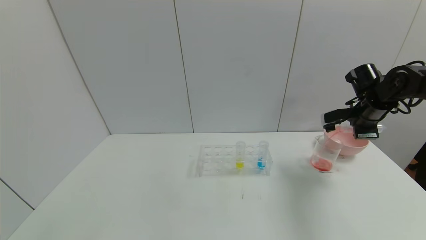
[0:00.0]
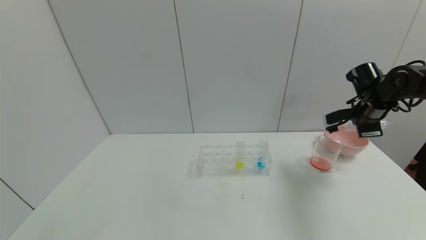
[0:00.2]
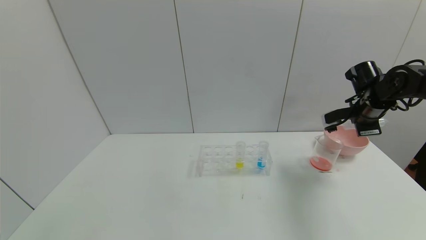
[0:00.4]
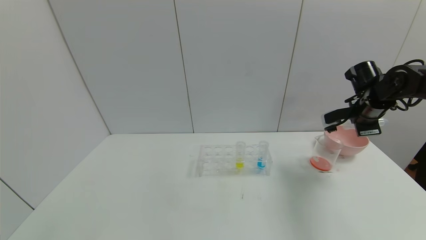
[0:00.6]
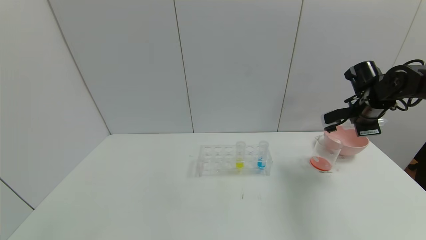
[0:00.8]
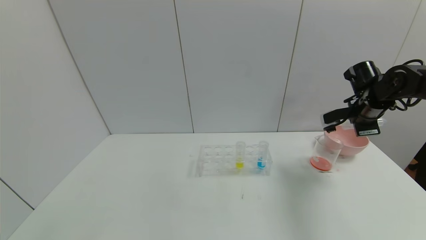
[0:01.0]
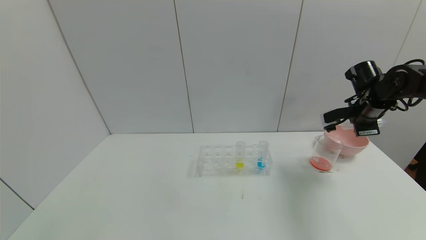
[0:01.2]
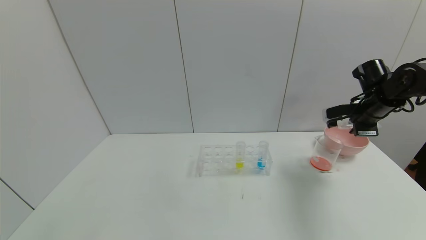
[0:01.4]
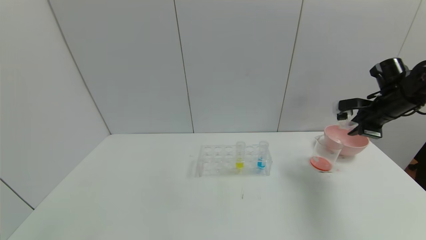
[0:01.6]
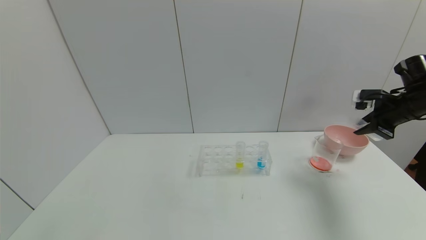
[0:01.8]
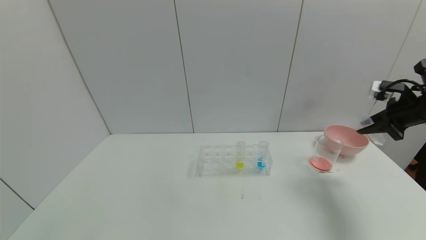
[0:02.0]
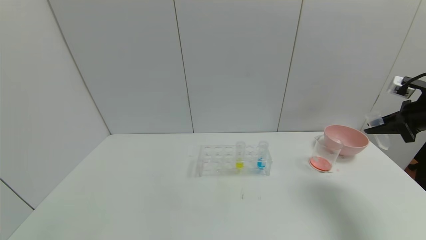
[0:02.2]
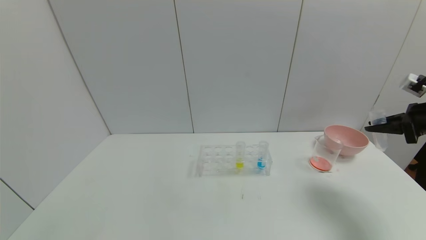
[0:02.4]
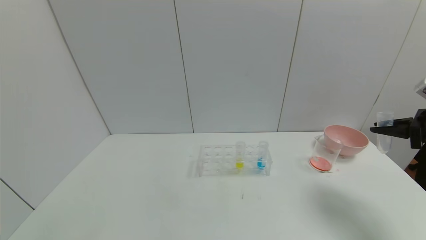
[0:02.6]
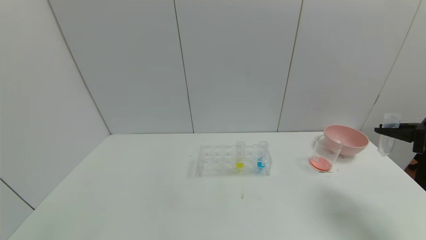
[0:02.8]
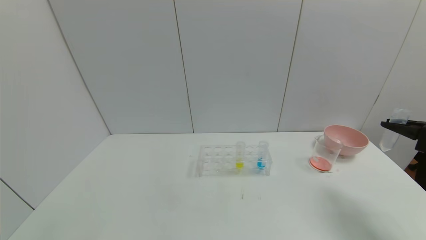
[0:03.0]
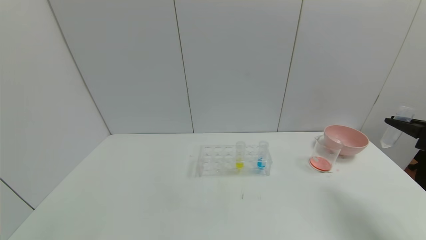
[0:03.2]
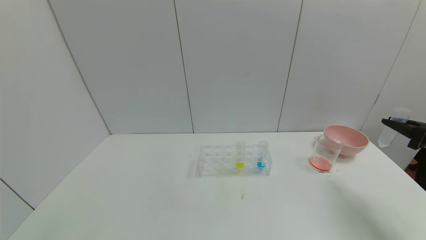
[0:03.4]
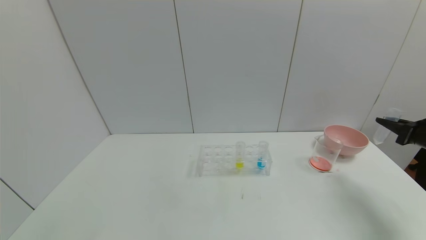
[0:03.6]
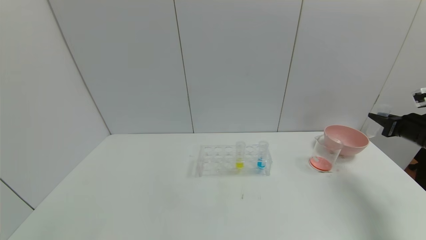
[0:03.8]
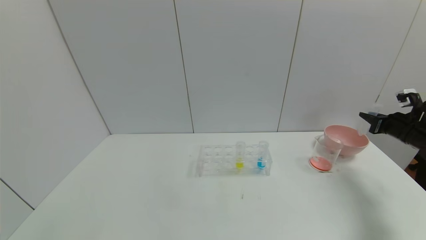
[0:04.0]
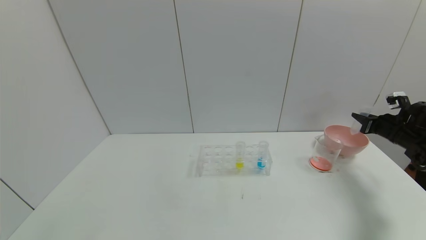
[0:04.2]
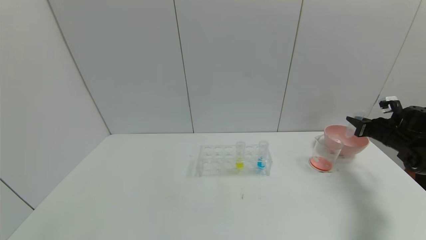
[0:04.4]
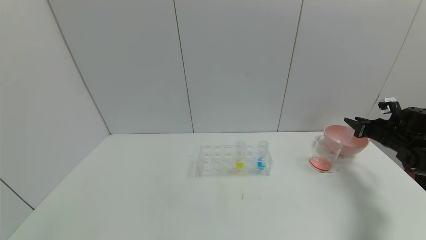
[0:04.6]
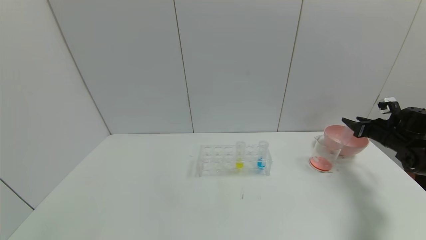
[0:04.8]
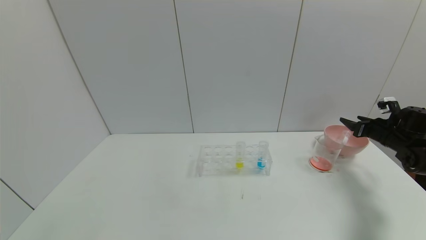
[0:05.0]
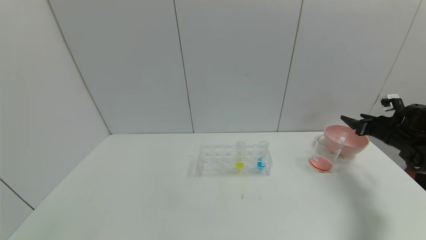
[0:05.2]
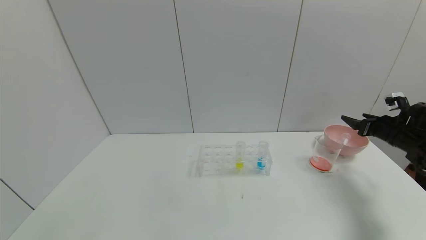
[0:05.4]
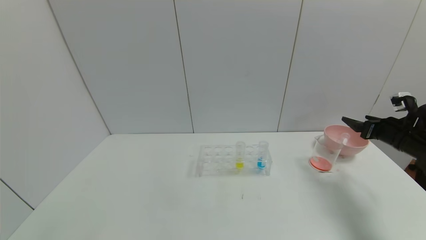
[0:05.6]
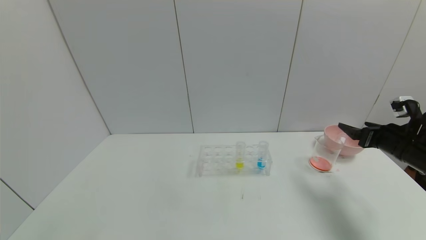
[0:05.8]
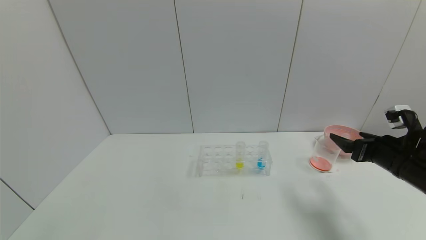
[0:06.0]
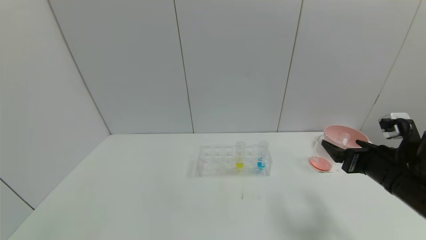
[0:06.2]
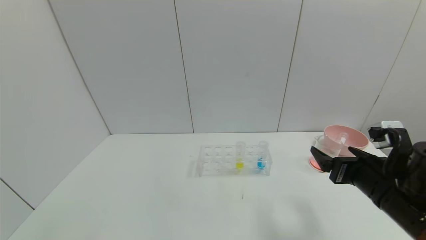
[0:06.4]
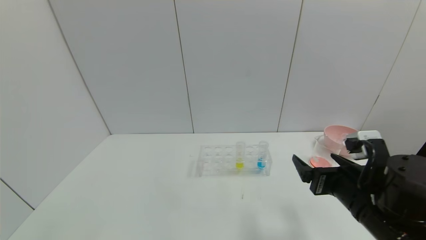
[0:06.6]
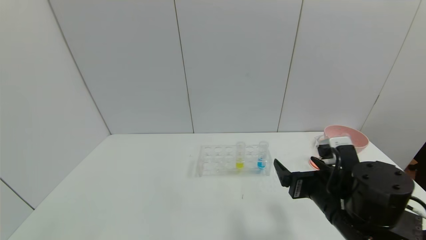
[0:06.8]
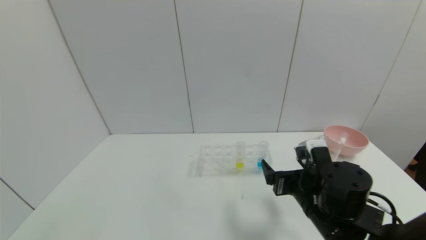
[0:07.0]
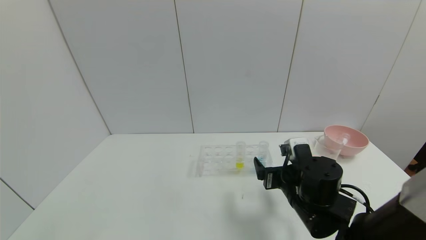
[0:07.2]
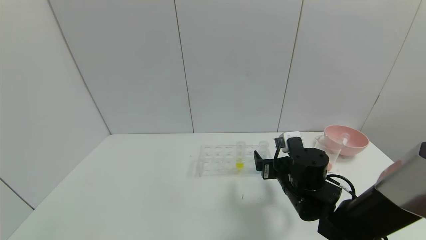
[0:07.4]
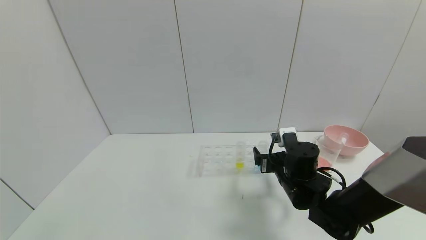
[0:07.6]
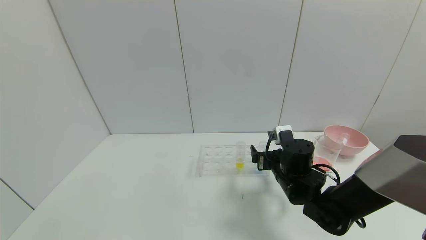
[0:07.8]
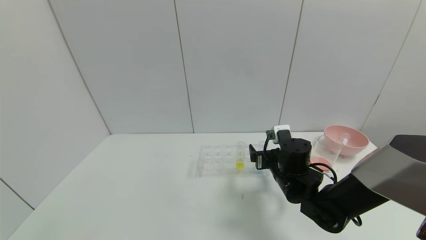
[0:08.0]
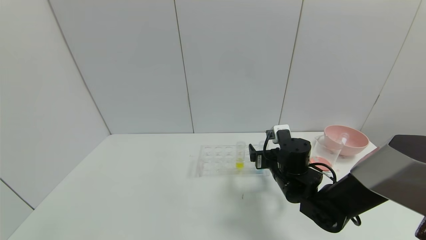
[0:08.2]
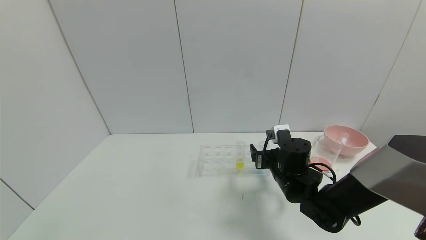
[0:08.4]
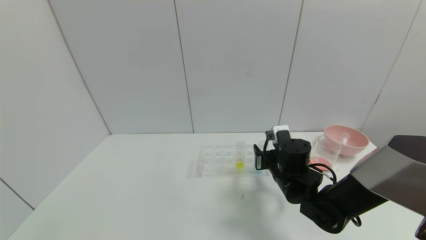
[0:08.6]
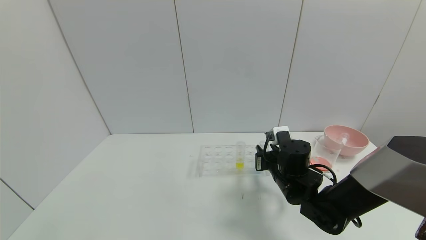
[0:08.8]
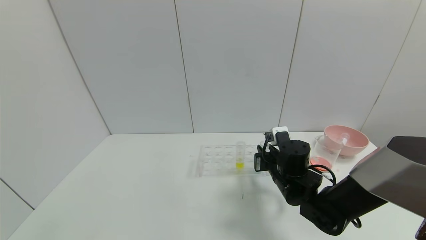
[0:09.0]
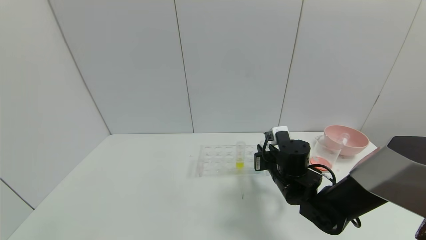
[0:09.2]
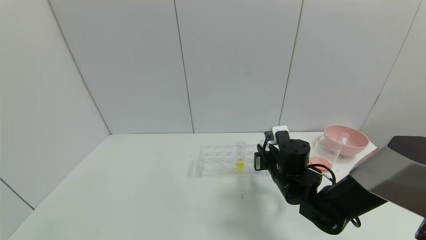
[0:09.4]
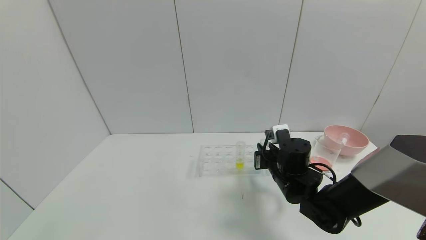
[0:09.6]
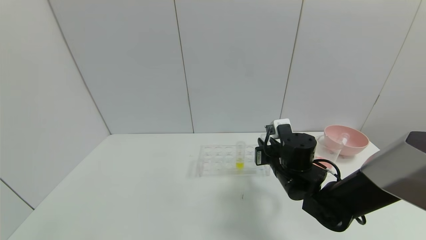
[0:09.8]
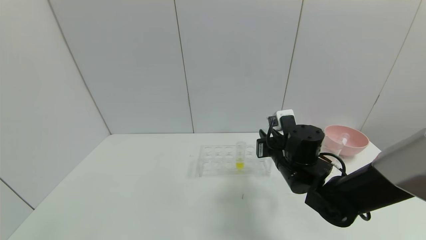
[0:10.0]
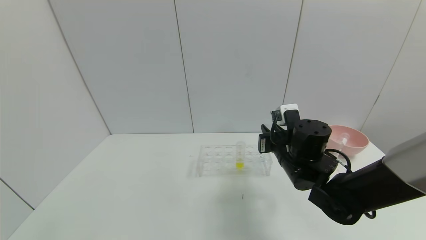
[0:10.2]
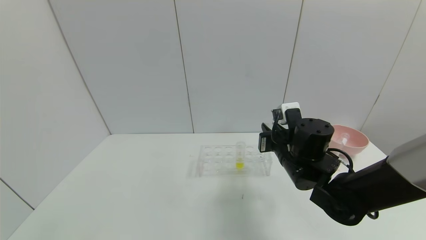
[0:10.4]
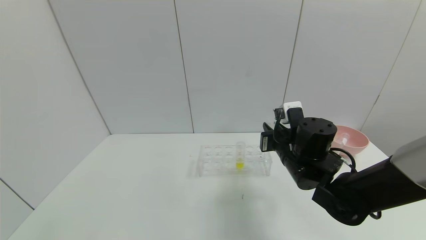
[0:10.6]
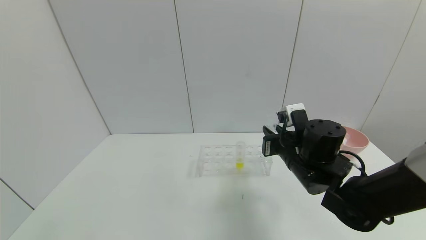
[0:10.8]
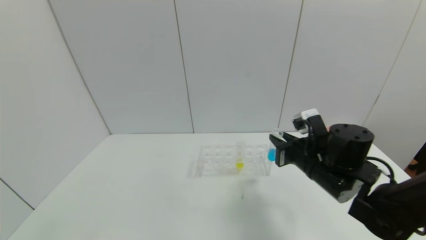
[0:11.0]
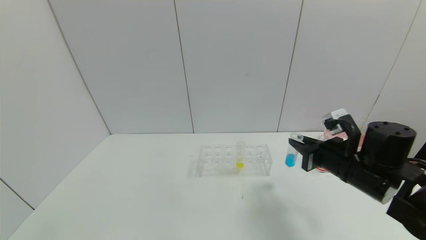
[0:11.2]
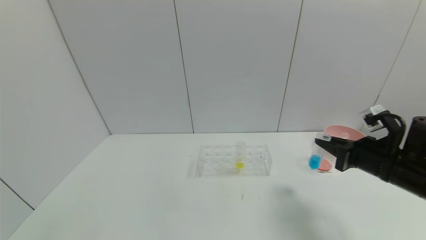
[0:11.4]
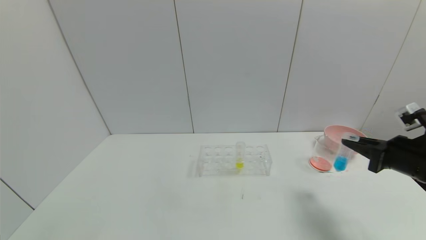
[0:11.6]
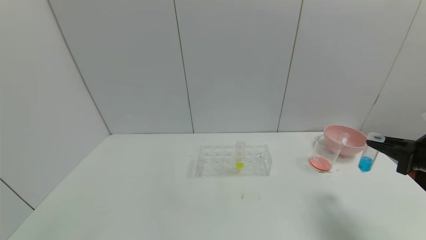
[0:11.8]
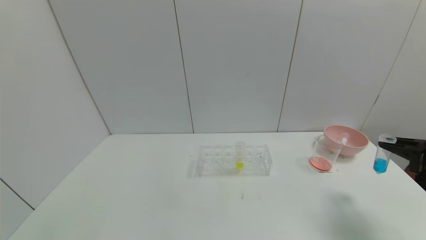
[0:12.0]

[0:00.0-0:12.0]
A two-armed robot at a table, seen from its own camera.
Task of the whole recording: pick up the test tube with red pigment and the test tube with blue pigment by grippers and pour them into the container.
Step, 0:00.4 to 0:05.2: Place the test tube into the bowl with the right gripper.
Step, 0:05.4 to 0:09.2: Grasp the blue reagent with the right gripper.
0:01.6 to 0:03.0: The right gripper travels backward and to the right by some 15 cm.
0:03.0 to 0:04.4: The right gripper heads forward and downward, covering approximately 20 cm.
0:04.4 to 0:06.0: The right gripper moves backward and to the left, roughly 20 cm, and opens.
0:06.0 to 0:07.6: The right gripper heads to the left, covering about 20 cm.
0:07.6 to 0:09.0: The right gripper closes its fingers.
0:09.0 to 0:10.4: The right gripper shifts some 5 cm upward.
0:10.4 to 0:12.0: The right gripper moves to the right, some 30 cm.

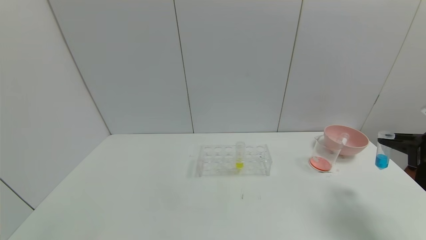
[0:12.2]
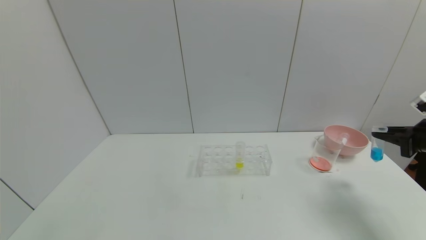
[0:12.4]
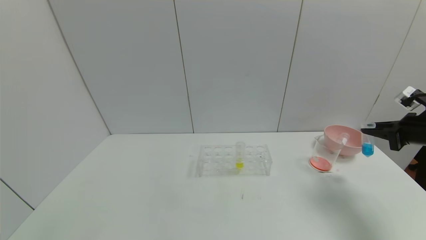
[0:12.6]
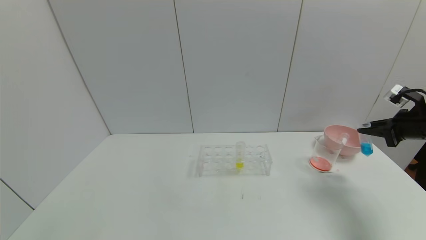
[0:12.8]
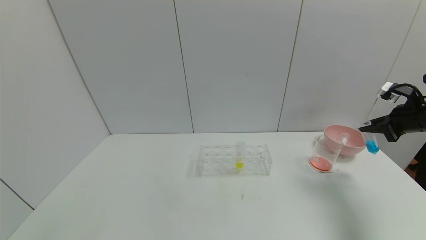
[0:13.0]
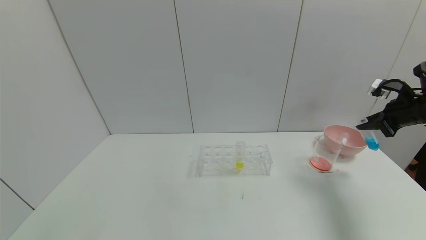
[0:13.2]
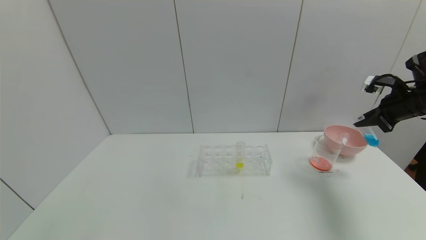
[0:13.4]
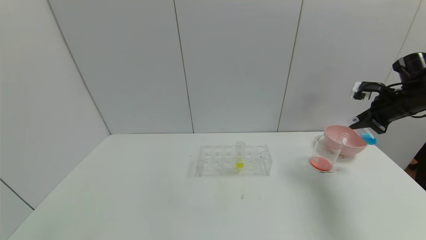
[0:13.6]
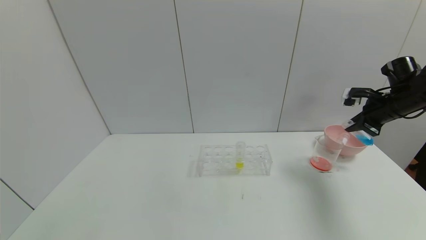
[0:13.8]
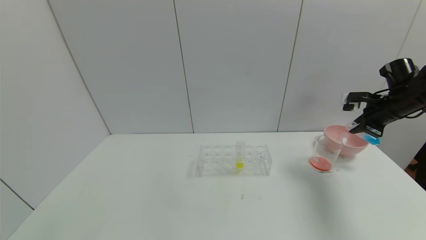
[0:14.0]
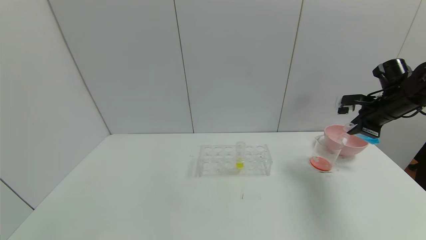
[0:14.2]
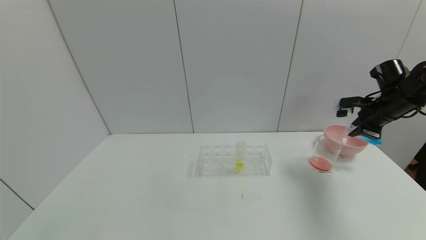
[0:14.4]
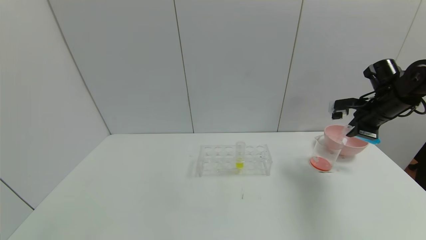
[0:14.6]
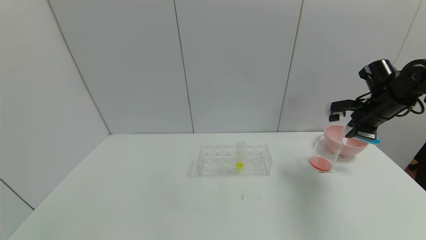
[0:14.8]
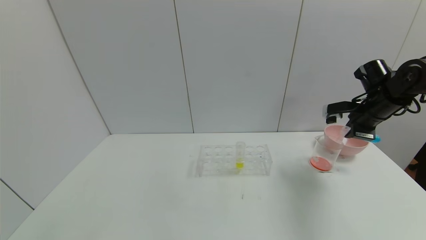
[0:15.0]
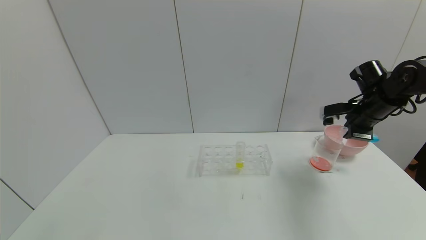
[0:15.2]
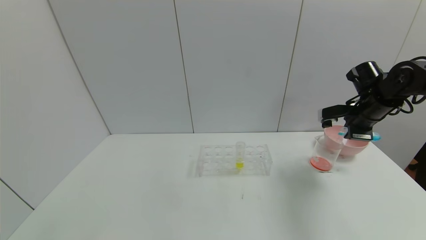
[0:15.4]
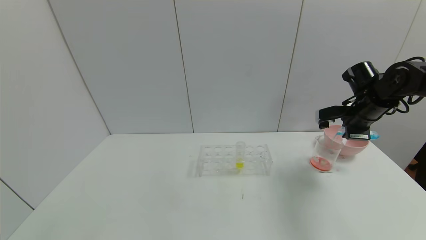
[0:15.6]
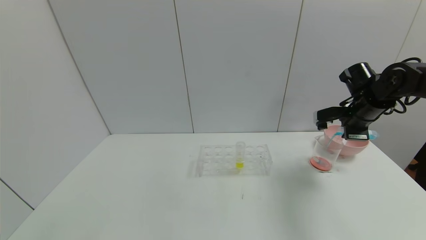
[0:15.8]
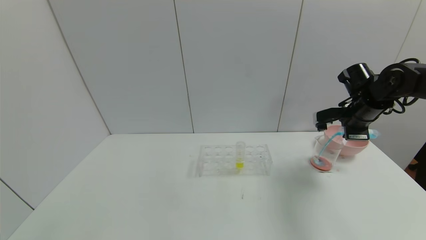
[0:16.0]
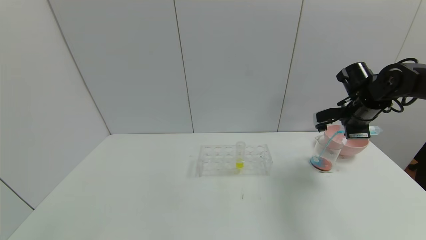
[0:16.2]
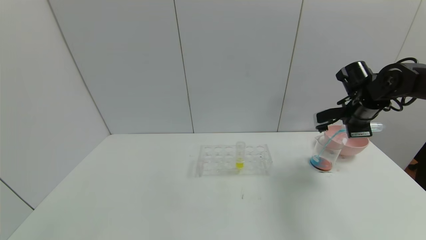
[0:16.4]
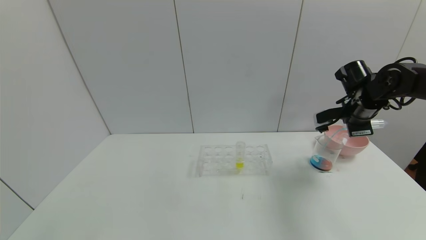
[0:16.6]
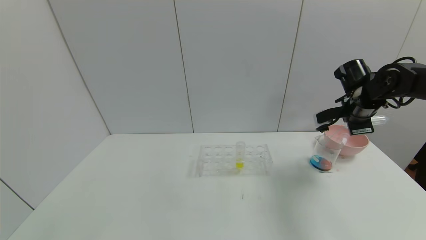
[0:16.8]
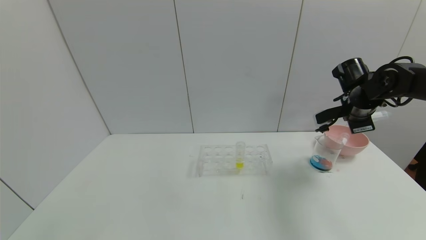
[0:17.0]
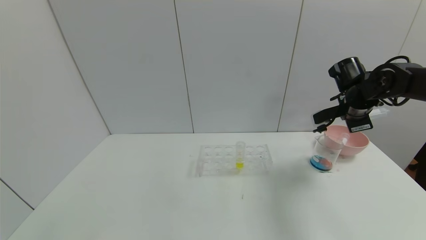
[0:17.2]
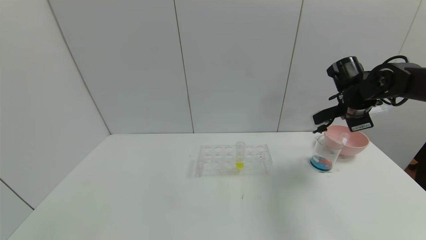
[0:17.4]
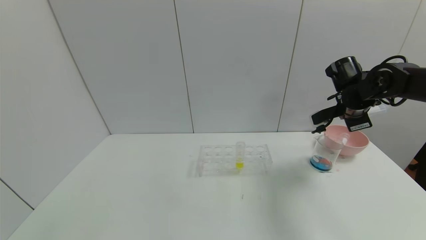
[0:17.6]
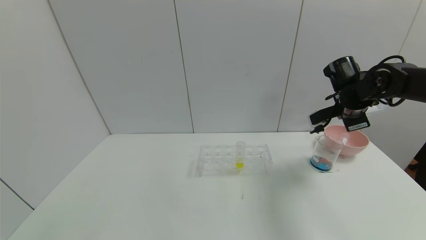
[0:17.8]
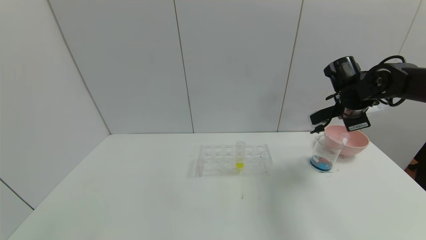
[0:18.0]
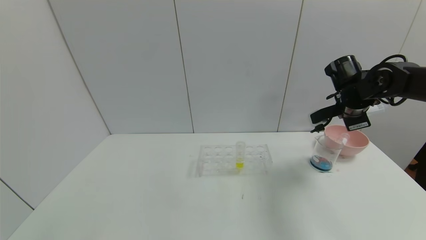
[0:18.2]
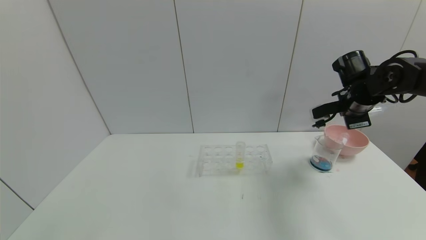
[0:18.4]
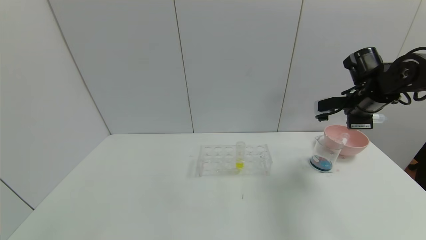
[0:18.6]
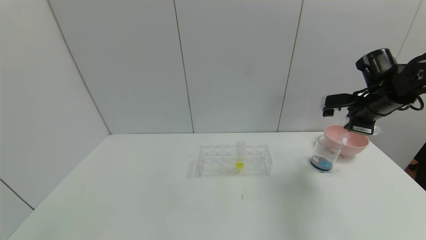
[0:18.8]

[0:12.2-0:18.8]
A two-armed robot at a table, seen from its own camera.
Task of the whole recording: pick up the test tube with red pigment and the test tube with blue pigment by grippers and pour them into the container.
Step, 0:12.2 to 0:17.2: Pour the blue reagent into the graduated cylinder with the right gripper.
0:12.2 to 0:13.8: The right gripper shifts about 15 cm forward.
0:13.8 to 0:15.4: The right gripper shifts about 5 cm to the left.
